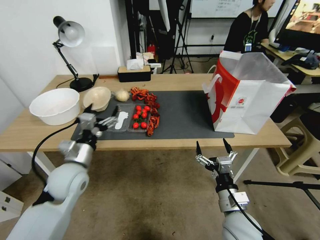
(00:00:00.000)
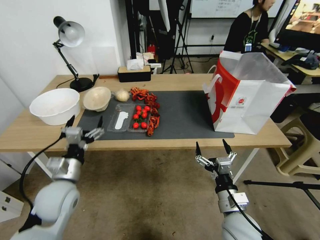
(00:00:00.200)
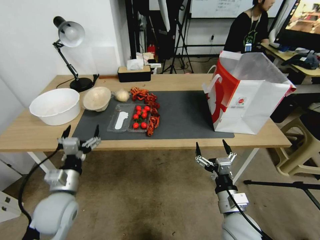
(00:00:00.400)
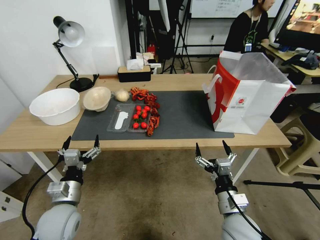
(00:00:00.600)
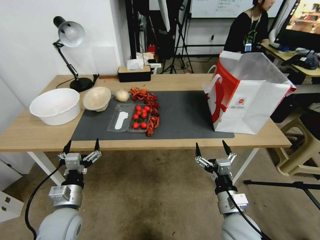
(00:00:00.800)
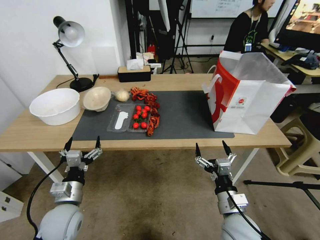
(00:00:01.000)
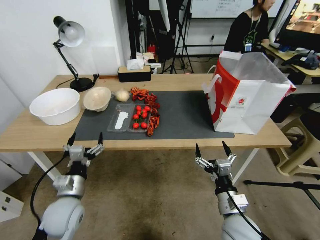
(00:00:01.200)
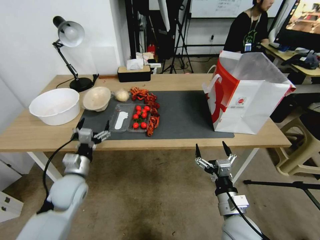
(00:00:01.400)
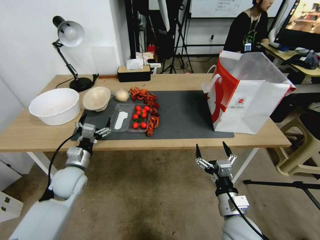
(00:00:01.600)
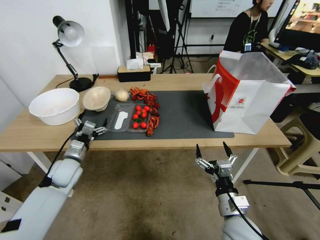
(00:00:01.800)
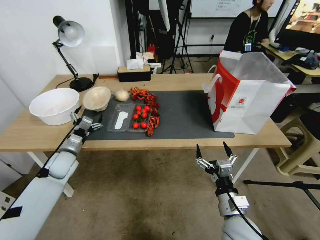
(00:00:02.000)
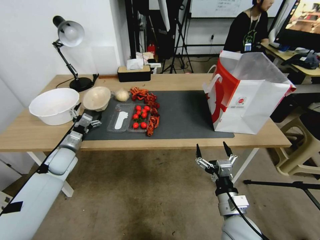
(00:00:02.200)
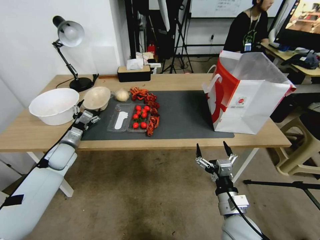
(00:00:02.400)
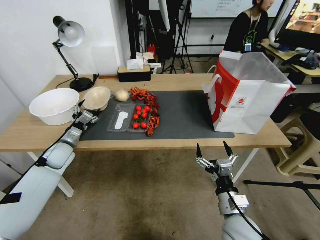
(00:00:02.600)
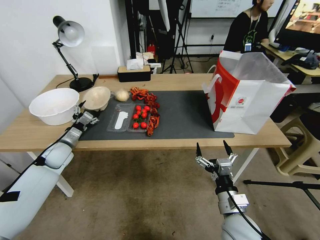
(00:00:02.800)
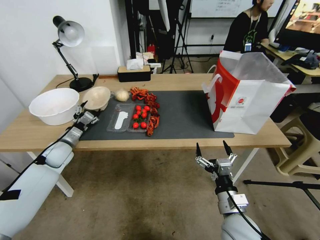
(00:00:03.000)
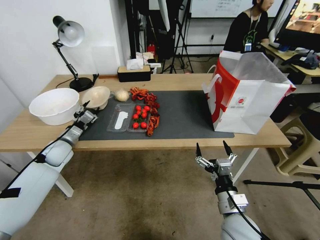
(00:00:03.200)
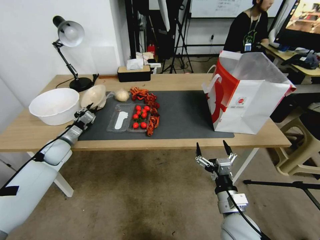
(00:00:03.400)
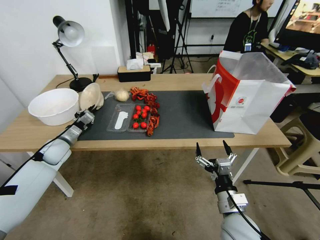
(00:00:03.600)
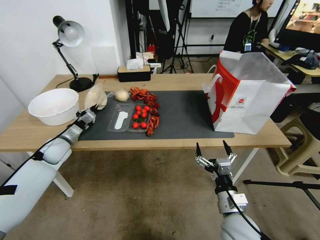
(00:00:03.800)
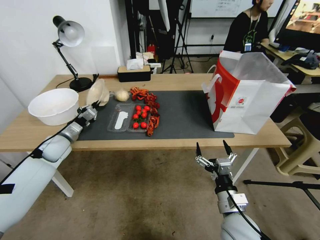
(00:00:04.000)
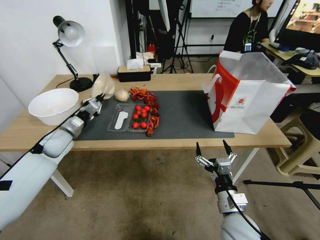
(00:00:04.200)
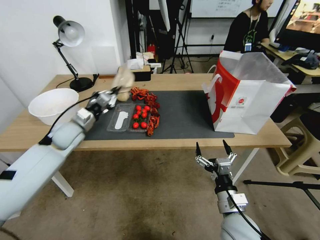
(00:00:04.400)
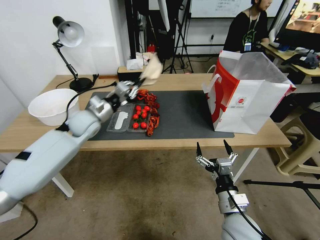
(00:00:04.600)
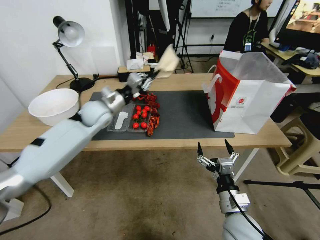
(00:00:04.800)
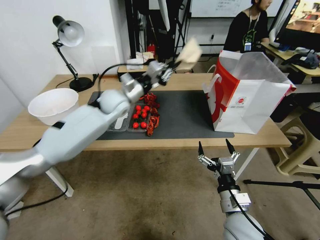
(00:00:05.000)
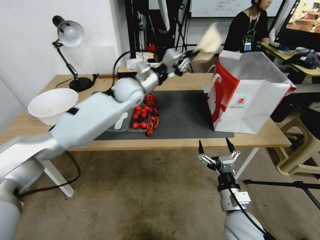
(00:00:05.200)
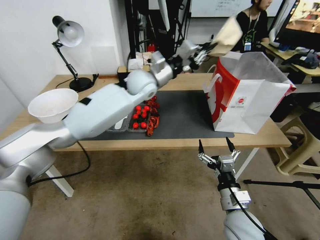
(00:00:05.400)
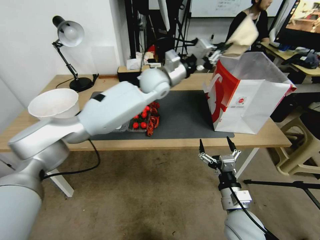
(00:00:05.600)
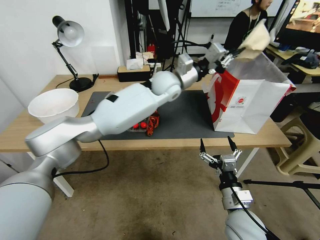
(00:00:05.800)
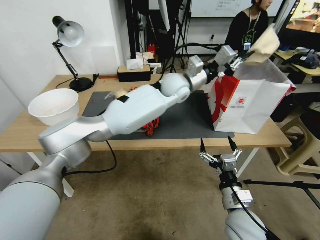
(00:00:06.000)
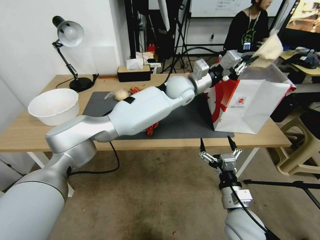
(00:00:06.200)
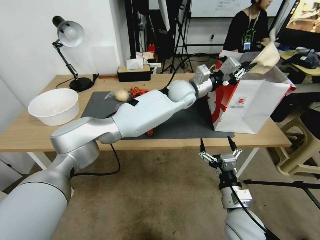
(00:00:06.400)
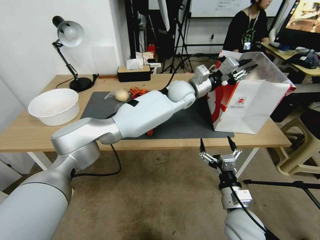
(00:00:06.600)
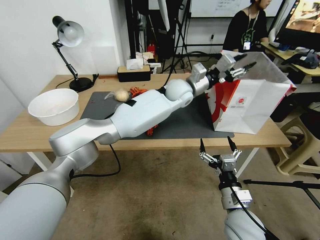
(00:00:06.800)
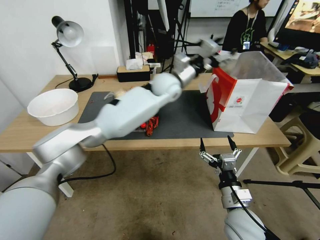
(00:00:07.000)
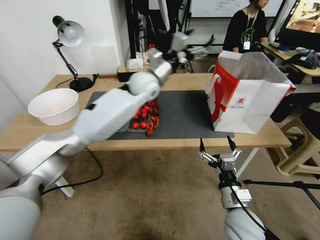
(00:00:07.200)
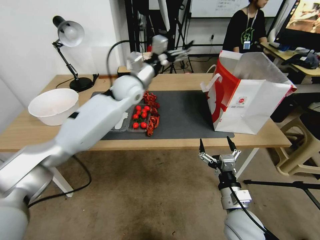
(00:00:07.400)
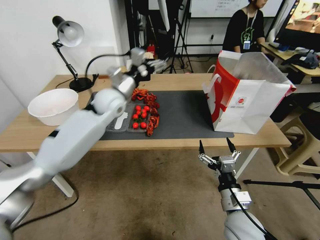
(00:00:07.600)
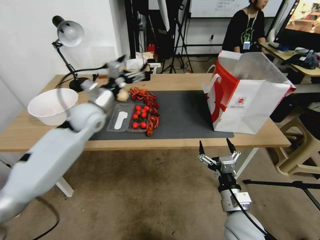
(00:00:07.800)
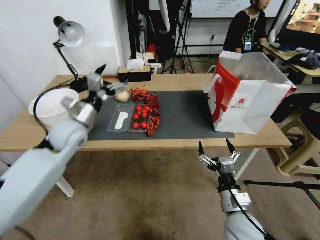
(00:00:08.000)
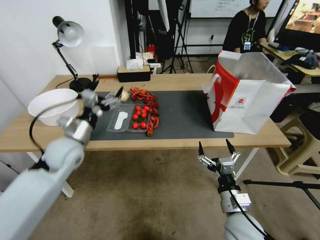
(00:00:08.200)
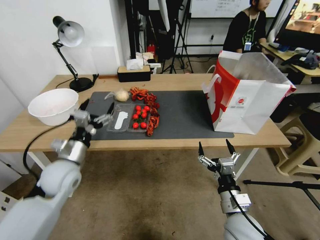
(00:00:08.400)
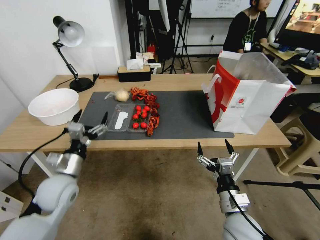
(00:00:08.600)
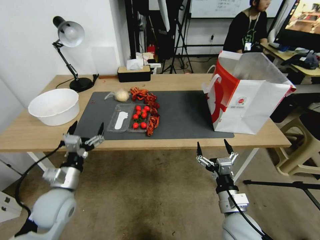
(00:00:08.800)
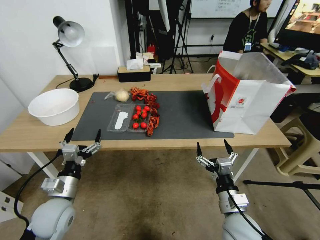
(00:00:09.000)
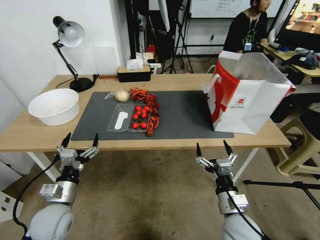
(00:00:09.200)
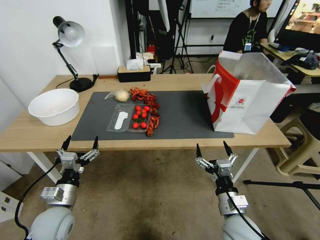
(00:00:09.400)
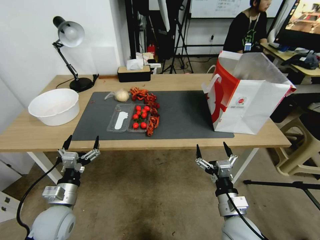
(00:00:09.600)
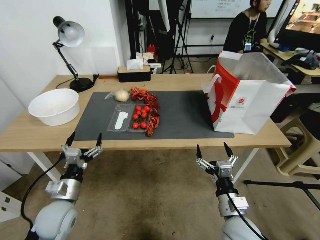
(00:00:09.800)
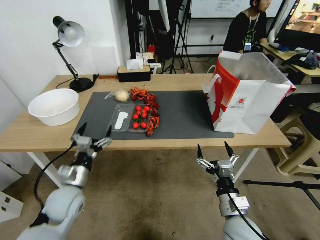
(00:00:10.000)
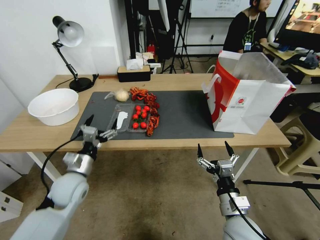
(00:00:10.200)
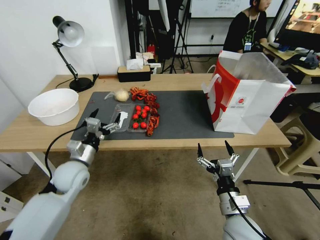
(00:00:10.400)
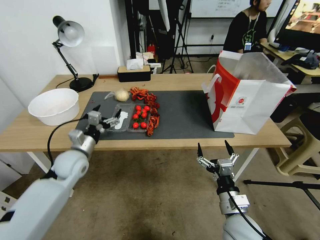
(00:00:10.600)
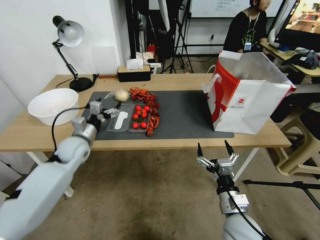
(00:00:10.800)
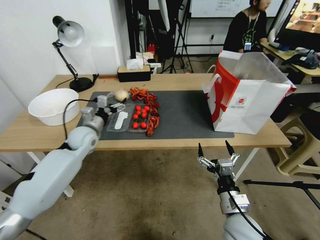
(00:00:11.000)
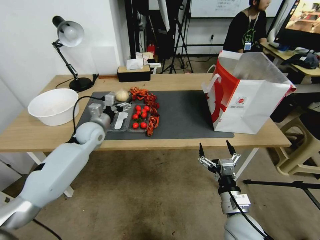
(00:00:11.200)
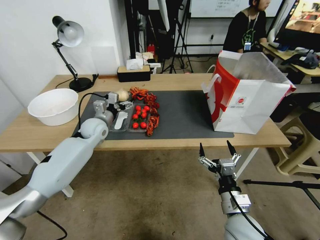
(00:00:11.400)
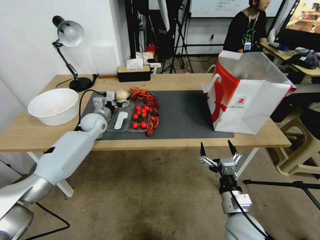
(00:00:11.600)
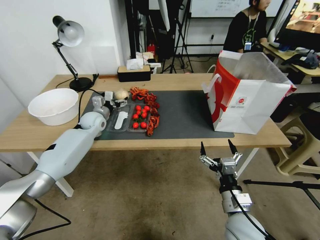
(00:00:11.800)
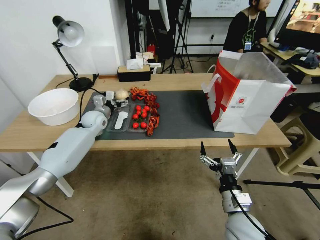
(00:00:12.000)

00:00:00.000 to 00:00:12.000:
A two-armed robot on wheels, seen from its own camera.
00:00:00.000 to 00:00:01.600: The left gripper travels downward by roughly 5 cm, and travels backward and back again, roughly 10 cm each way.
00:00:01.600 to 00:00:03.000: The left gripper moves forward and to the left, approximately 15 cm.
00:00:03.000 to 00:00:04.400: The left gripper heads upward and to the right, covering roughly 10 cm, and closes.
00:00:04.400 to 00:00:06.000: The left gripper goes some 35 cm to the right.
00:00:06.000 to 00:00:07.600: The left gripper travels to the left by approximately 20 cm, and opens its fingers.
00:00:07.600 to 00:00:09.000: The left gripper shifts about 35 cm backward, downward and to the left.
00:00:09.000 to 00:00:10.400: The left gripper shifts approximately 10 cm forward.
00:00:10.400 to 00:00:12.000: The left gripper heads forward, covering approximately 25 cm.

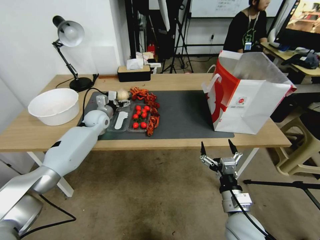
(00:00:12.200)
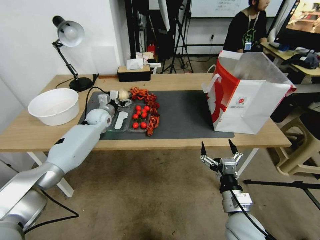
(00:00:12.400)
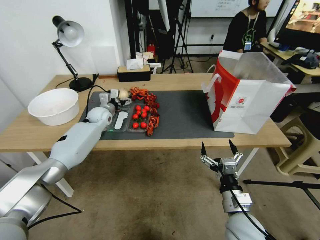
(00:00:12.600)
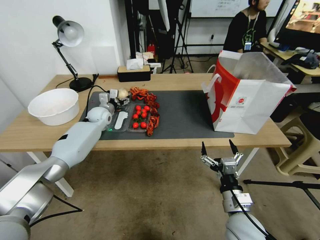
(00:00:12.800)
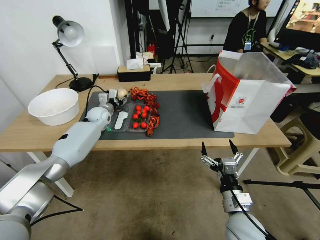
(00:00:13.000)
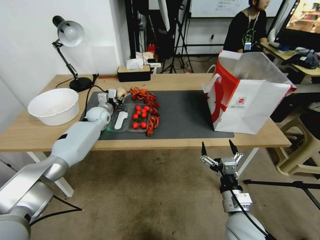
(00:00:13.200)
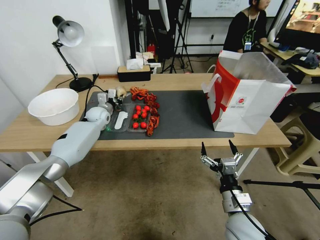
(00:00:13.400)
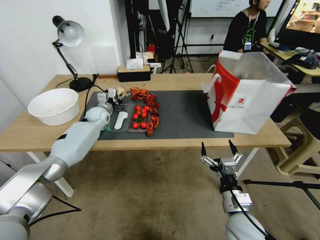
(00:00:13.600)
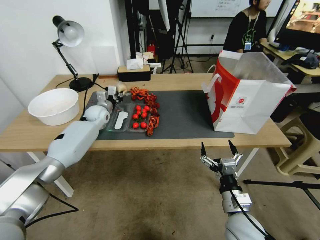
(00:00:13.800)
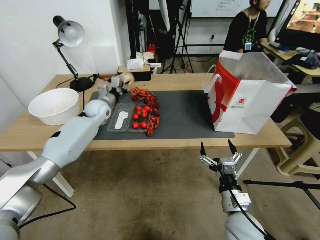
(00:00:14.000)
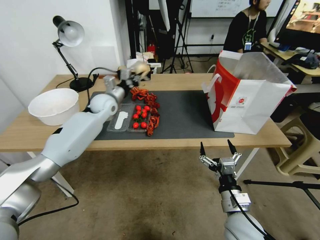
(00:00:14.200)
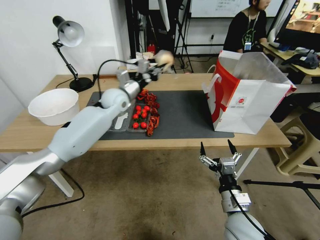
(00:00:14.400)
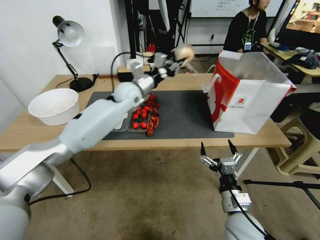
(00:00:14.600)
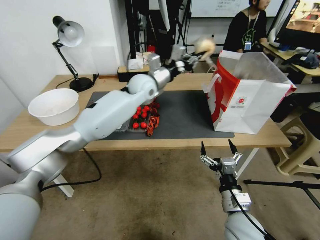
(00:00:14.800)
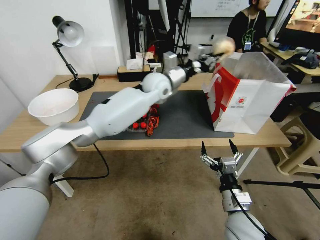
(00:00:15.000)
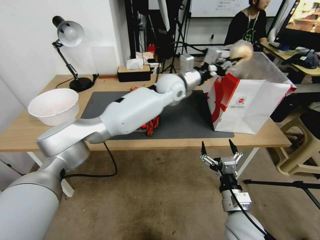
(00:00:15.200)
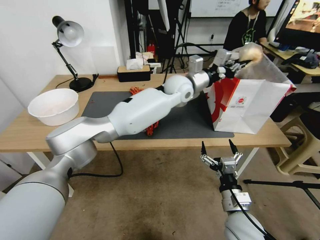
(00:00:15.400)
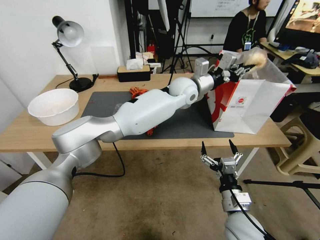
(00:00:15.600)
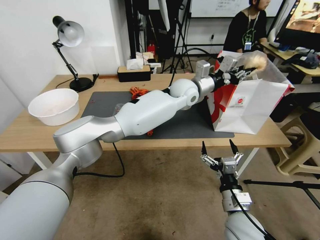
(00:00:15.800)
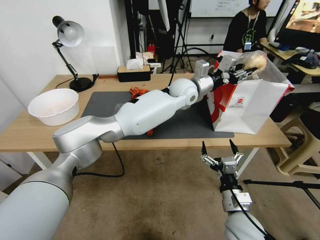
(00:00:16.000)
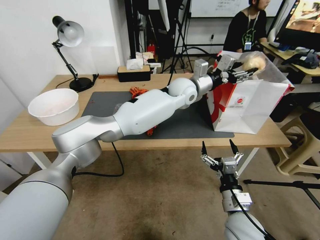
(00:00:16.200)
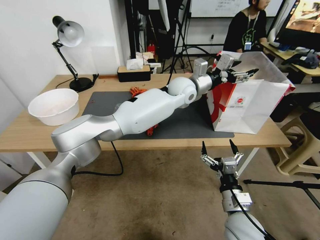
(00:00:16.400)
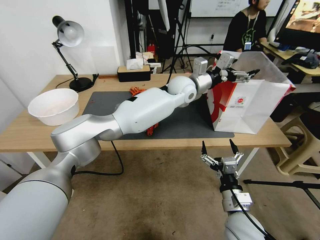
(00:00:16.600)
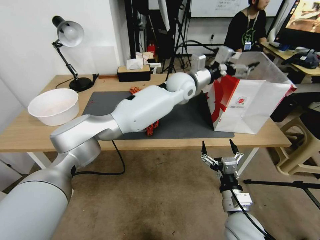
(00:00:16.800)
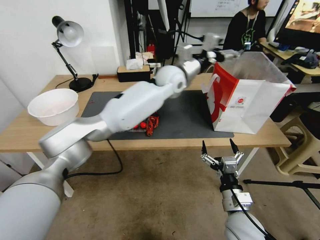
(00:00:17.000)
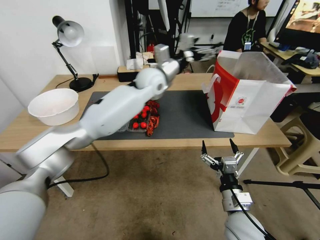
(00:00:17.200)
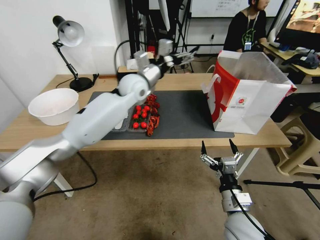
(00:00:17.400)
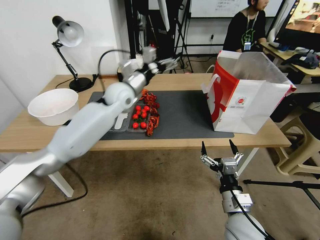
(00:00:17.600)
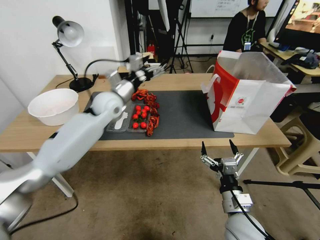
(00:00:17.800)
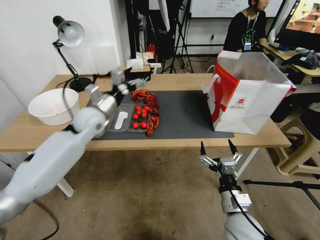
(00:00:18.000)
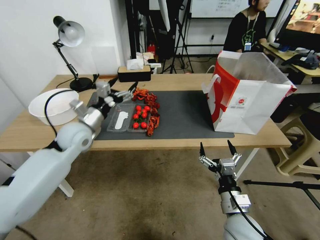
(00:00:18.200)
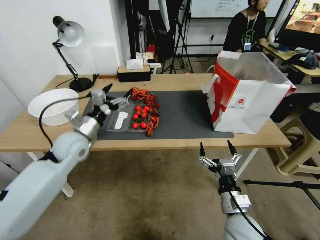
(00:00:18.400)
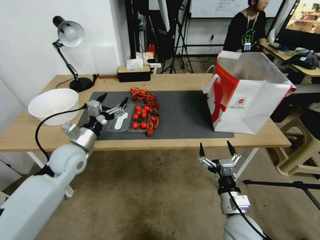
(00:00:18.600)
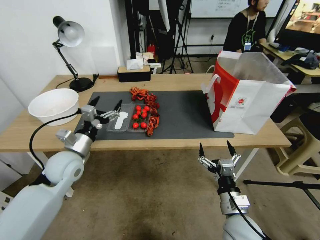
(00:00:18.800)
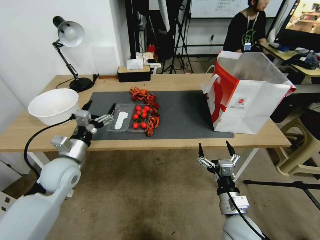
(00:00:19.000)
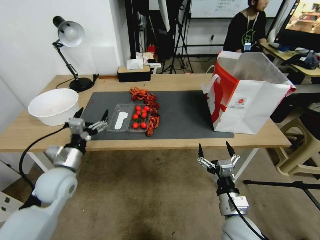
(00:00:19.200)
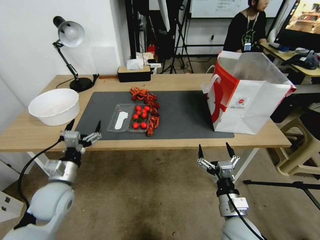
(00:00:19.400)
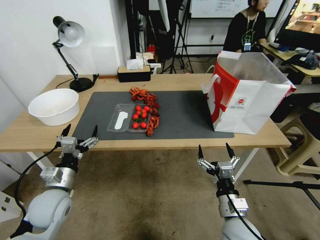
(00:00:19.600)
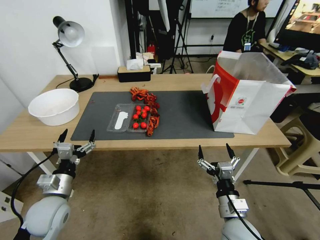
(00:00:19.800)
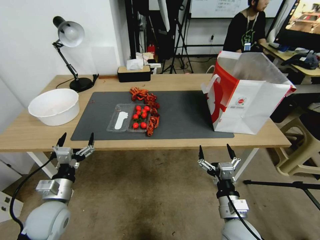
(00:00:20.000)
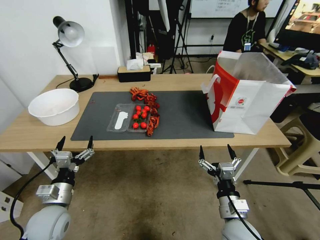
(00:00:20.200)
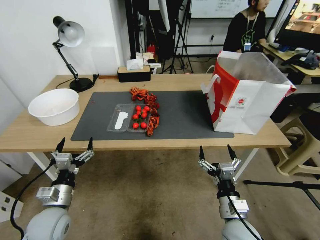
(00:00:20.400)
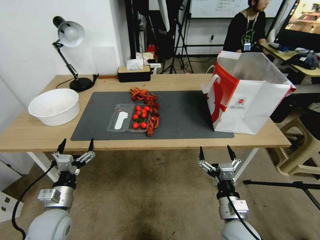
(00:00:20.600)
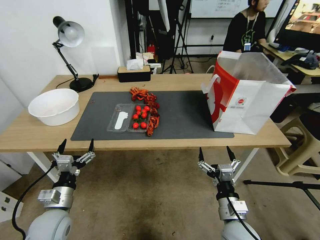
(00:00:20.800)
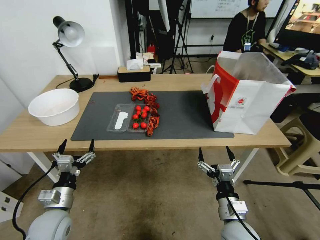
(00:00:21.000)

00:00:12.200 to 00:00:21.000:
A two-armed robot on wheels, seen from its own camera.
00:00:12.200 to 00:00:13.600: The left gripper closes its fingers.
00:00:13.600 to 00:00:15.200: The left gripper goes some 35 cm to the right and upward.
00:00:15.200 to 00:00:16.600: The left gripper heads to the right, covering about 5 cm, and opens its fingers.
00:00:16.600 to 00:00:18.000: The left gripper travels to the left by some 30 cm.
00:00:18.000 to 00:00:19.600: The left gripper goes about 25 cm backward and downward.
00:00:19.600 to 00:00:21.000: The left gripper changes place by approximately 5 cm.
